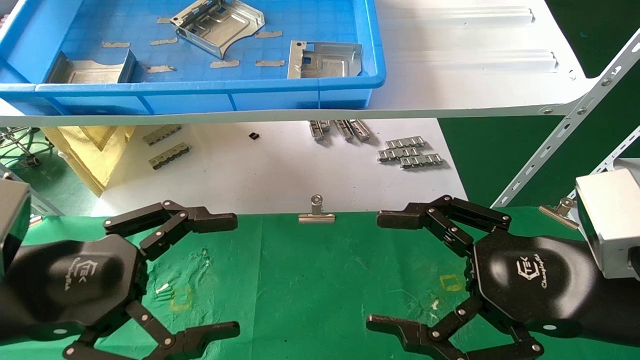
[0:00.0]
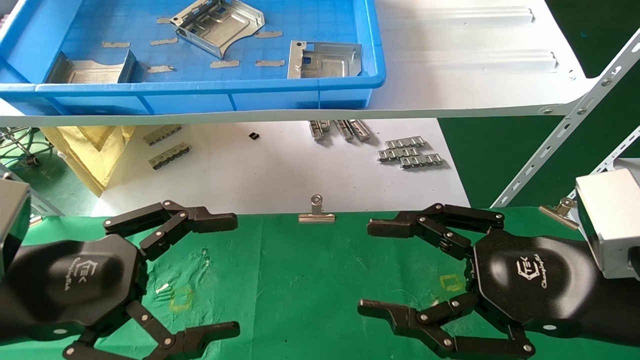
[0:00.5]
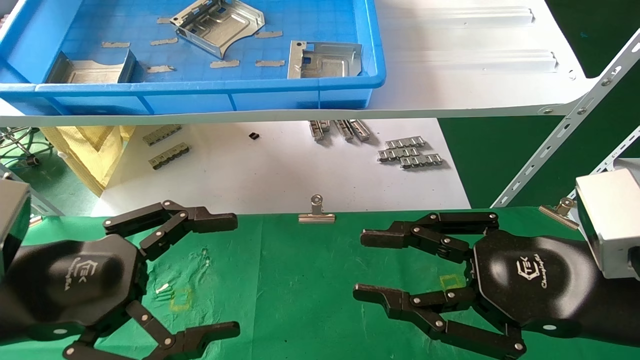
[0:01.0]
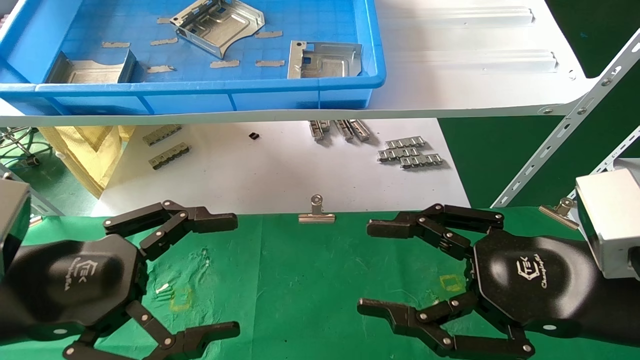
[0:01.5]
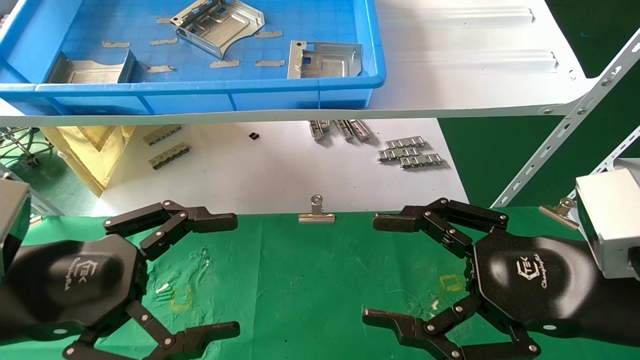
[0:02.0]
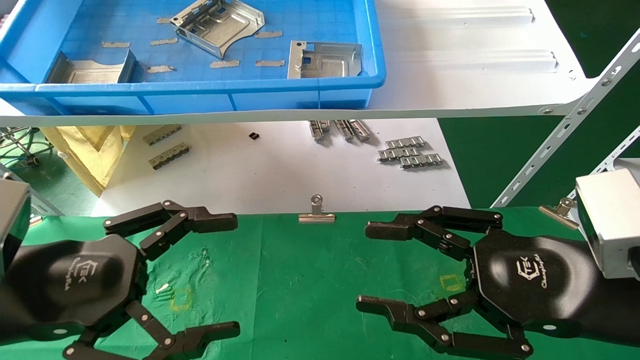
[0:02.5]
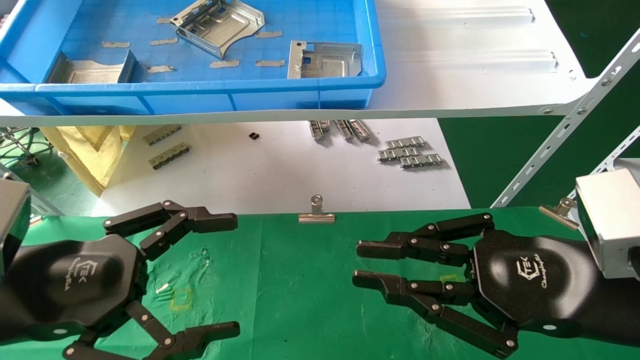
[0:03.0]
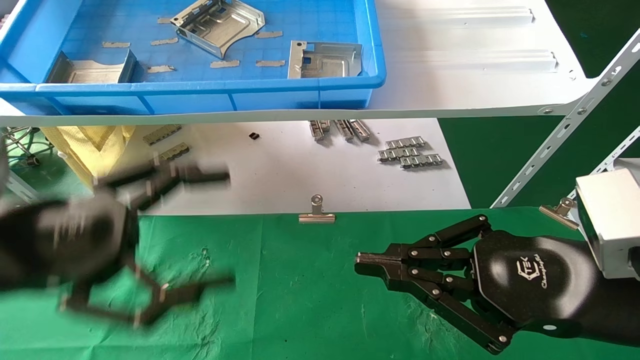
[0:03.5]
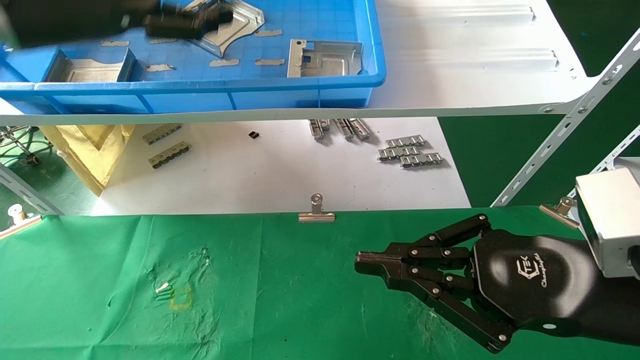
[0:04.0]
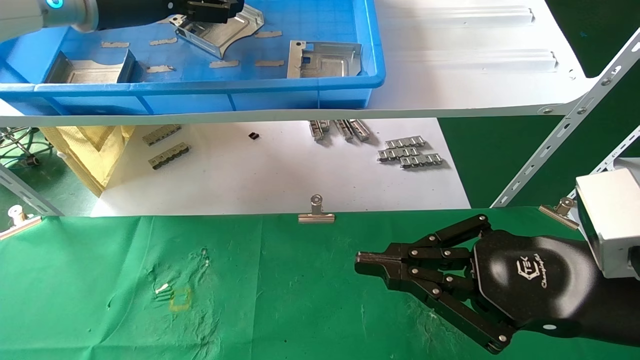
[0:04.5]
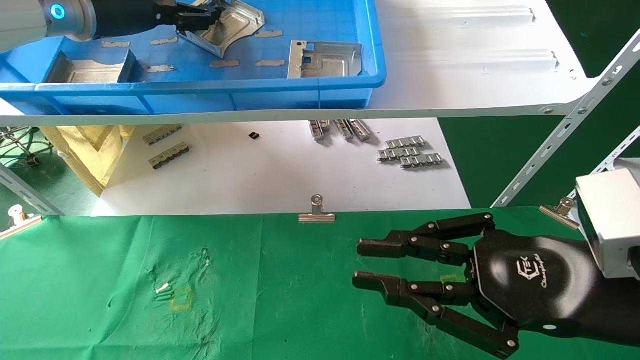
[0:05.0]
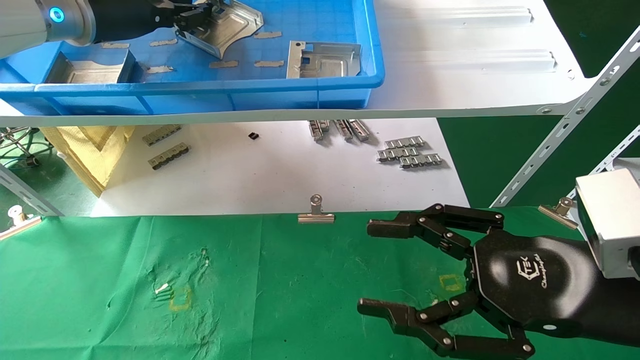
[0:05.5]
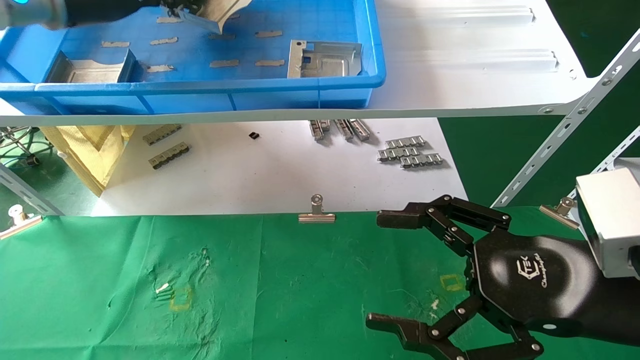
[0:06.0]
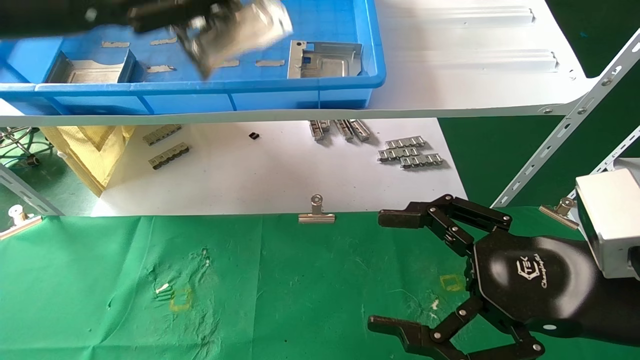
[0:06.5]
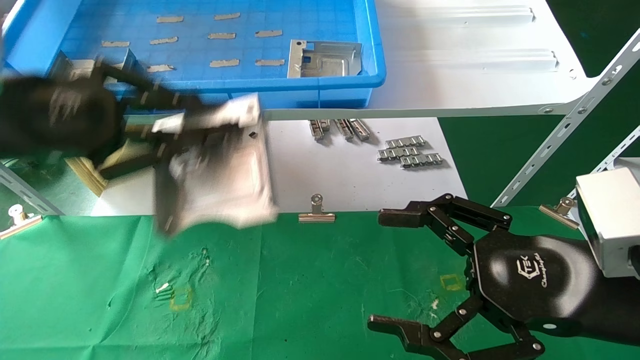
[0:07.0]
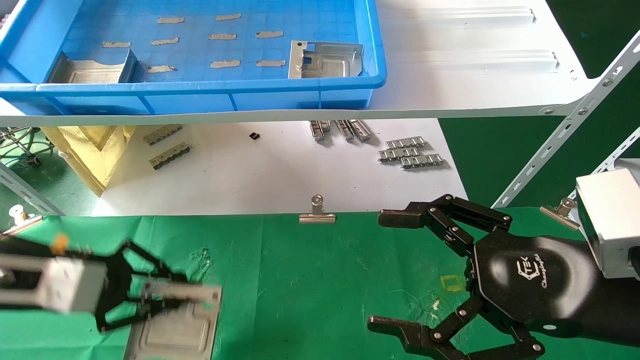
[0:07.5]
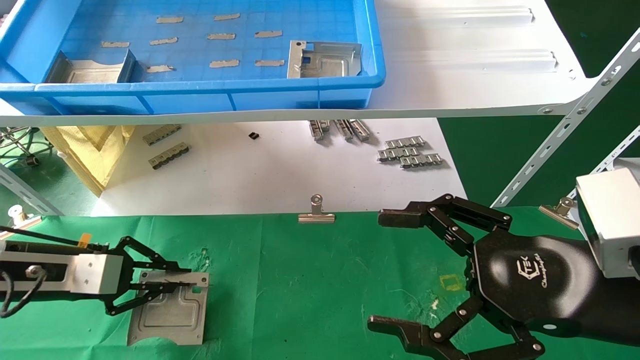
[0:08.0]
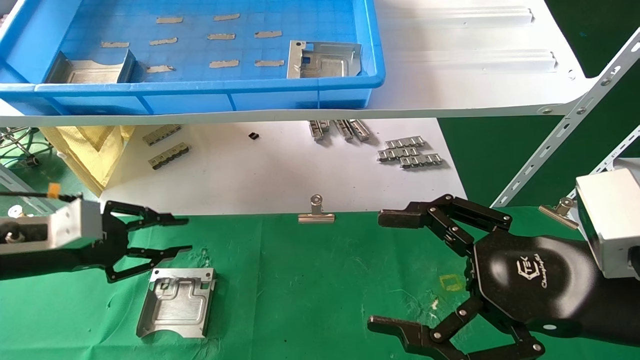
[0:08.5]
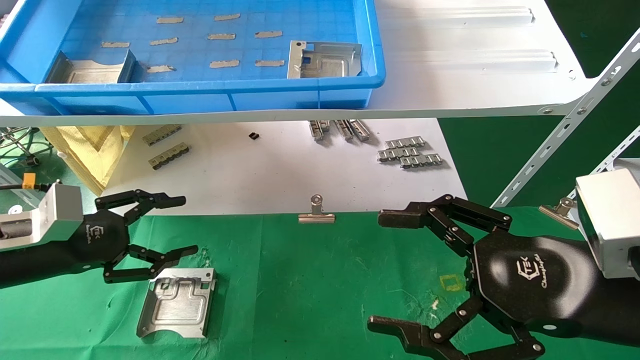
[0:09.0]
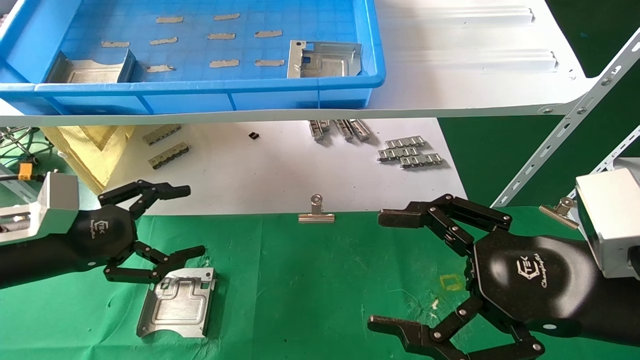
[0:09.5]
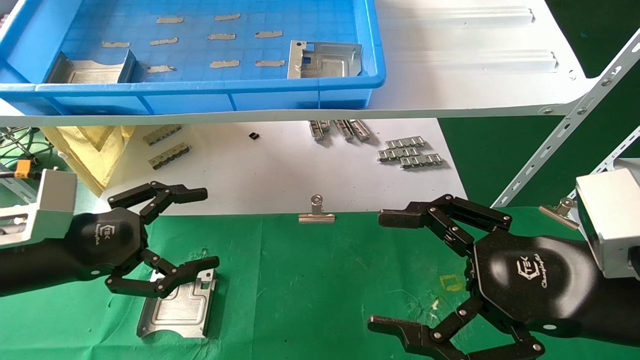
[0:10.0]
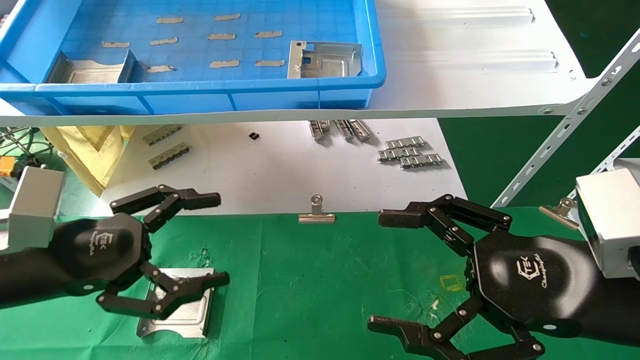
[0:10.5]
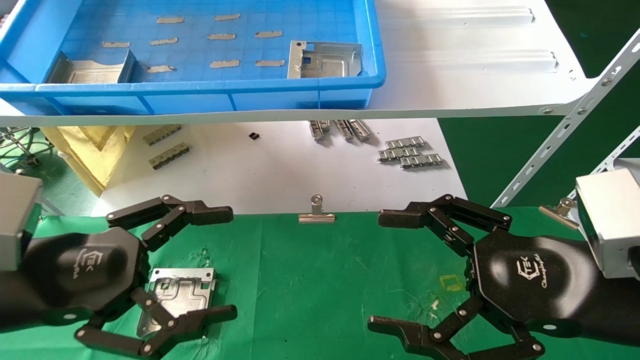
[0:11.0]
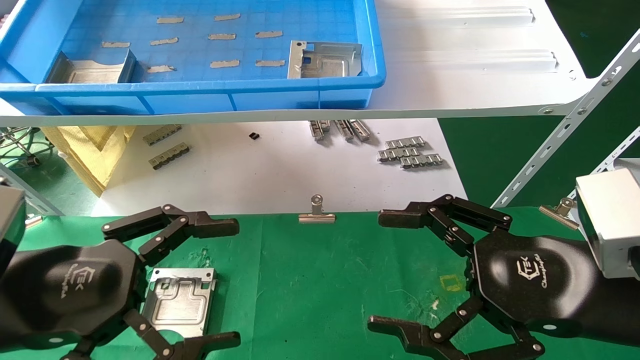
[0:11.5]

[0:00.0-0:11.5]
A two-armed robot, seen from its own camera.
Task of the whole recording: use the mechanical arm to pick up the parts and place them on the table.
Step, 0:04.0 to 0:05.5: Pick up the hard drive bracket from the feeding area.
Step, 0:06.0 to 0:08.5: Place the hard drive bracket into the box.
0:00.0 to 0:02.0: The right gripper closes, then reopens.
0:02.0 to 0:04.0: The left gripper goes some 25 cm upward and forward. Meanwhile the right gripper closes its fingers.
0:04.0 to 0:06.0: The left gripper ends up some 5 cm from where it was, and closes its fingers. The right gripper opens up.
0:06.0 to 0:07.5: The left gripper goes some 25 cm downward.
0:07.5 to 0:09.5: The left gripper opens.
0:09.5 to 0:11.5: The left gripper travels backward and to the right by some 15 cm.
